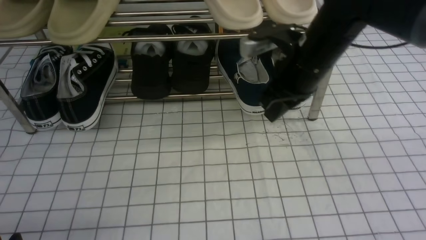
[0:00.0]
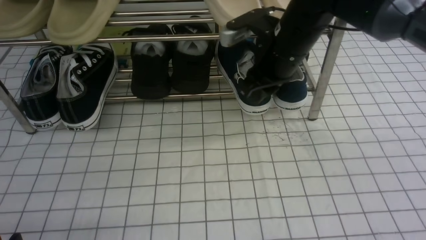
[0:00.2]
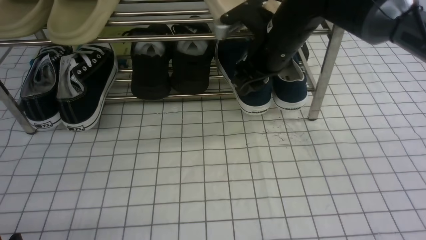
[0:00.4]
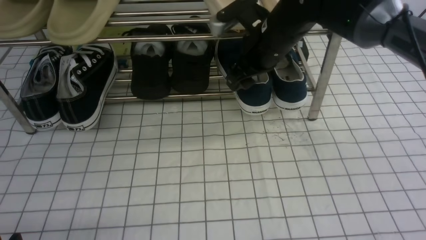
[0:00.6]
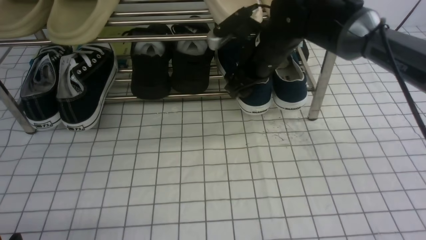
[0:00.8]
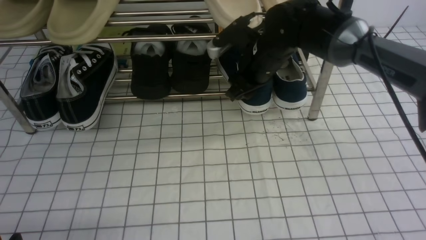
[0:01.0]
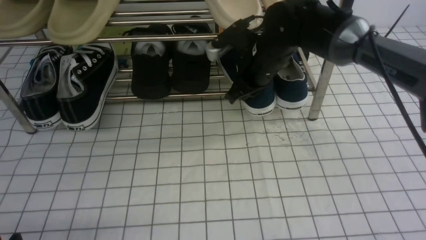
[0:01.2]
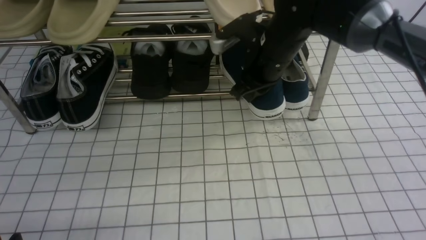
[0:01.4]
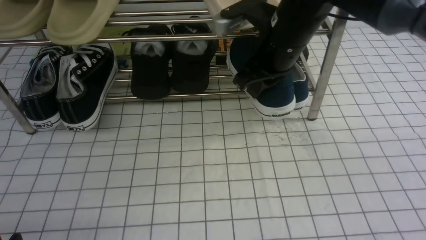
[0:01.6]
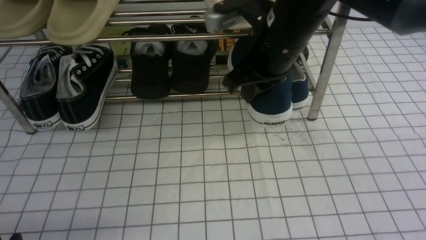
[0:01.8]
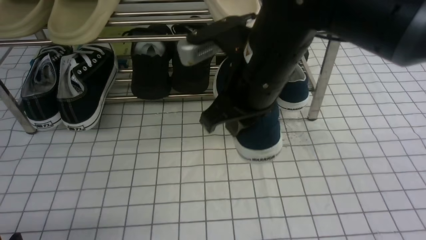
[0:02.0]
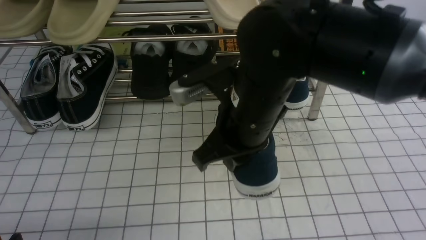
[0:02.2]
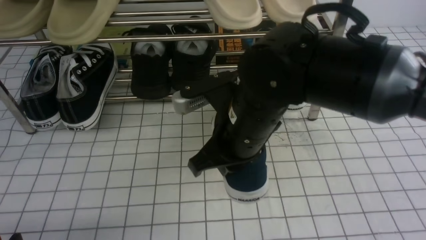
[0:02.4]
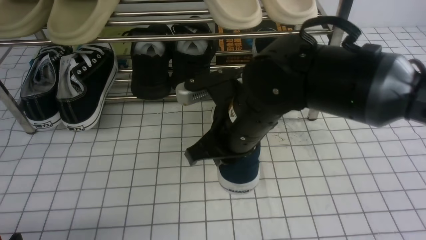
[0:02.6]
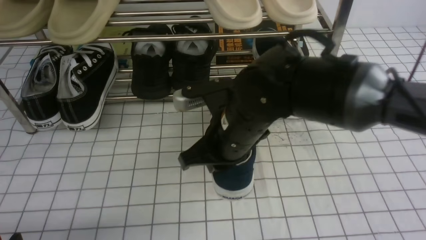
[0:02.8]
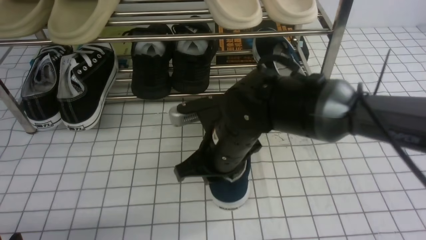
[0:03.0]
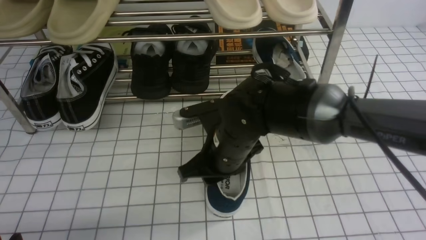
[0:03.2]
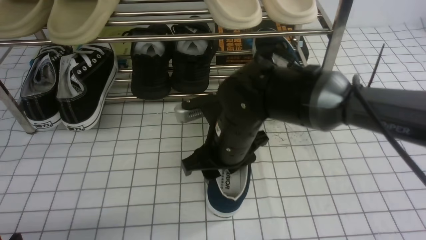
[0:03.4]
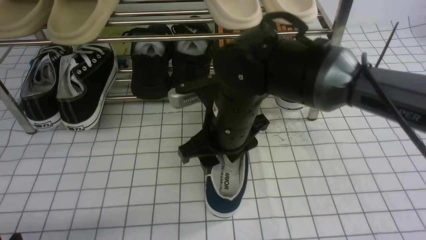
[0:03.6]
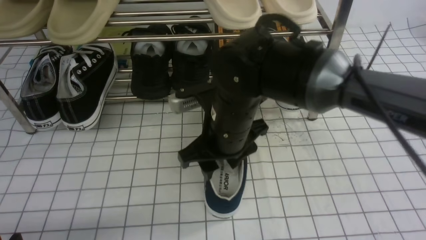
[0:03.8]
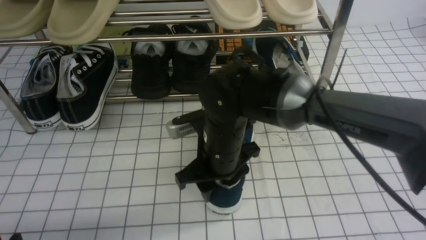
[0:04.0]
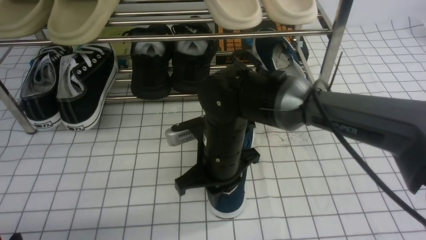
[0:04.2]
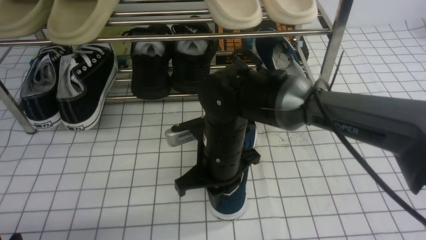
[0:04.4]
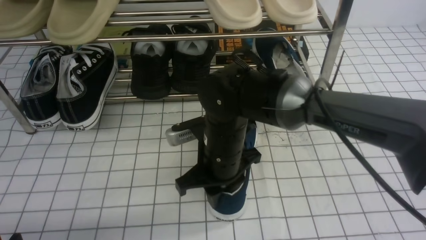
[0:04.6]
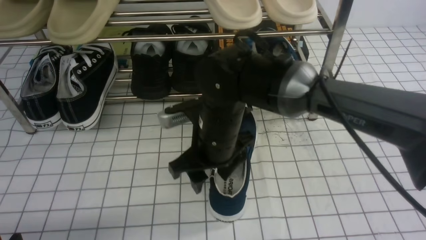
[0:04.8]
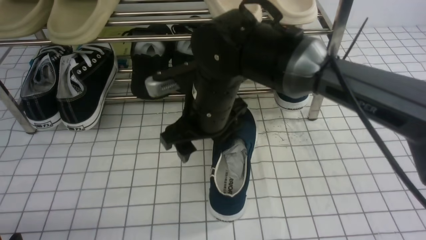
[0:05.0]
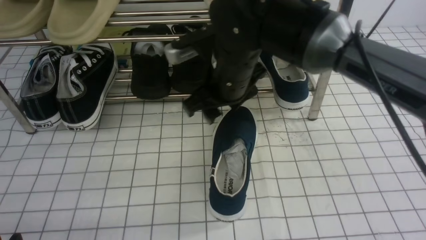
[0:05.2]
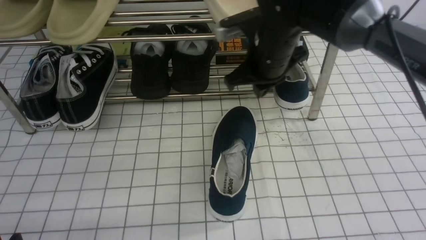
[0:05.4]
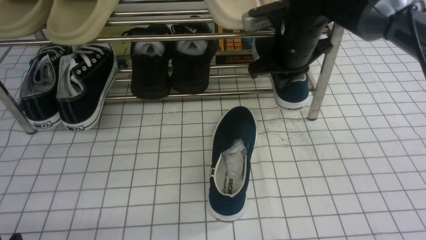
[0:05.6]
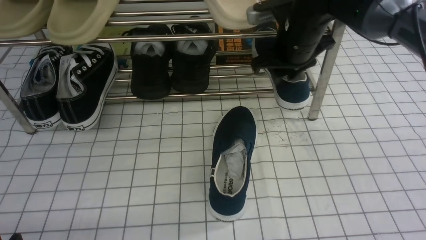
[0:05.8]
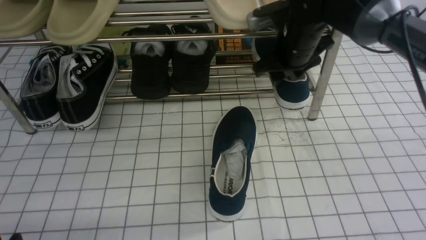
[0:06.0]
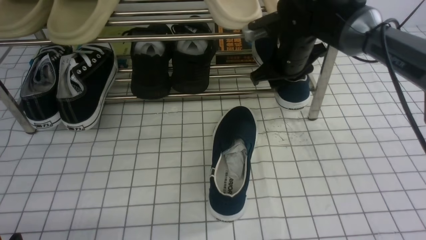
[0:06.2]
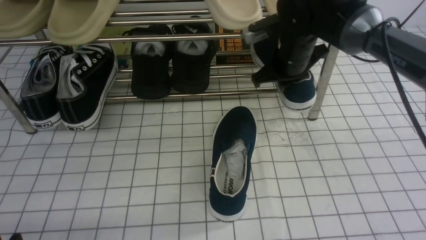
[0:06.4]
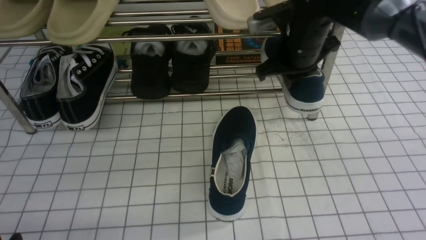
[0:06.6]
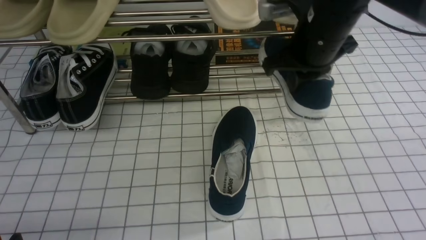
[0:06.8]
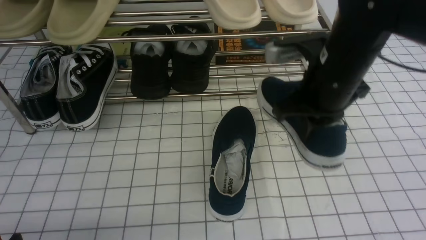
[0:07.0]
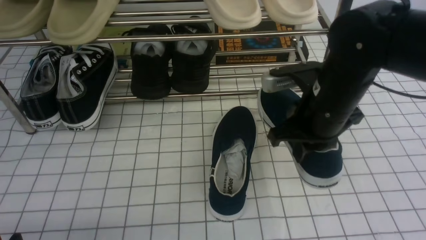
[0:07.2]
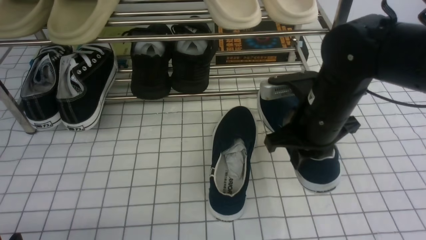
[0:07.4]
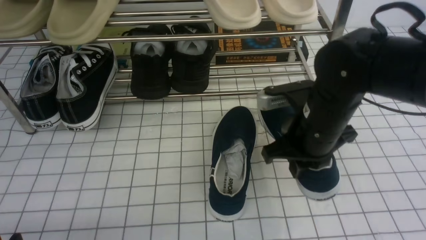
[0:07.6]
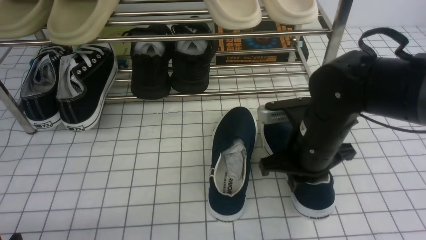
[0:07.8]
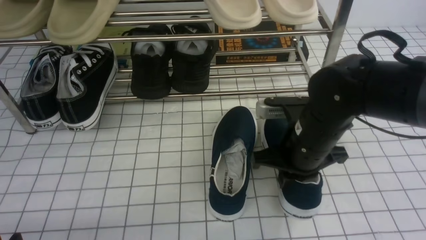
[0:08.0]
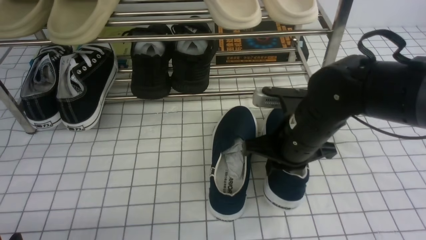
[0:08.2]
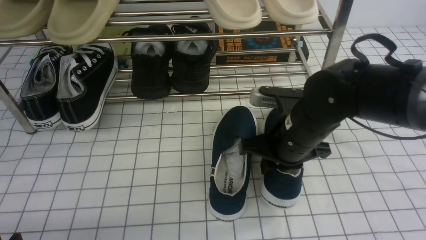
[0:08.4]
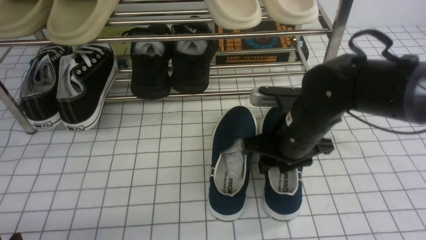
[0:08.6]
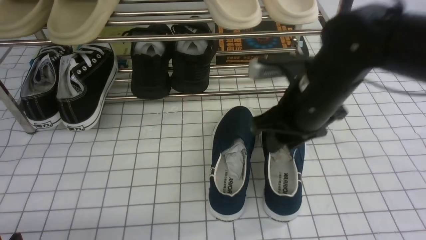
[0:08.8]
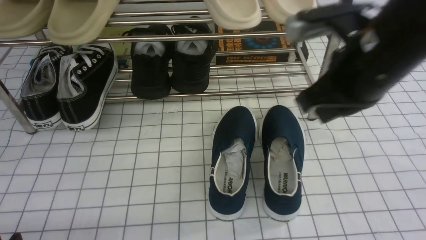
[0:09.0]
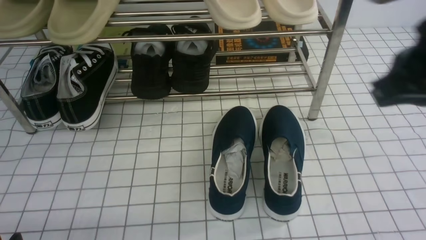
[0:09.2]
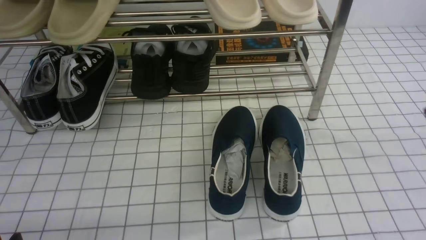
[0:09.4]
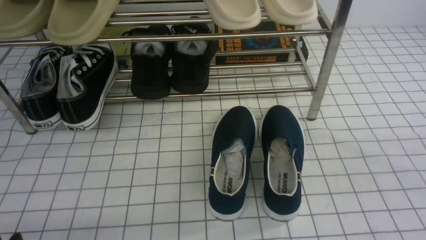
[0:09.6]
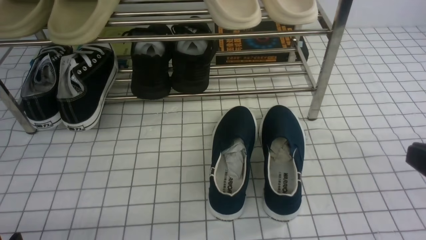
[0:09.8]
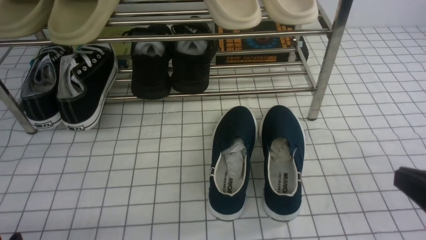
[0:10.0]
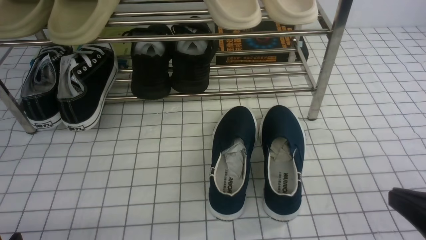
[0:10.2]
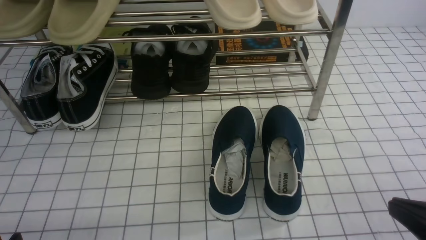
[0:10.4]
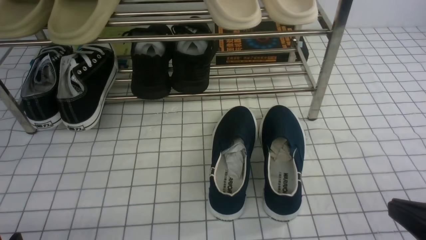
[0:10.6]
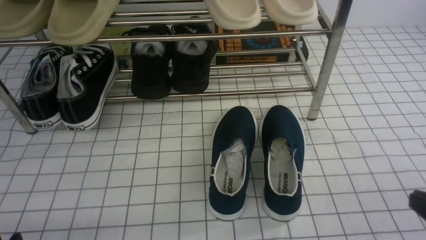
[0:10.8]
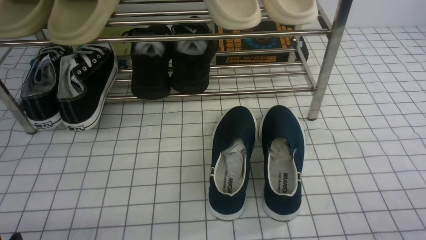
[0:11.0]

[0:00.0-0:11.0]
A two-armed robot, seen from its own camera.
Step, 1.2 to 4.8 s: use the right arm to take out the clamped shoe from the shoe rack and put it down.
Step, 5.0 to 6.2 s: use the right arm to clamp a shoe on the right side of the shoe rack.
Step, 6.4 to 8.6 s: use the right arm to take out the clamped shoe from the shoe rack and put it down.
0.0 to 1.6 s: The right gripper opens and closes again.
1.6 to 3.2 s: The right gripper is displaced downward, backward and to the left by approximately 15 cm, and opens up.
3.2 to 4.8 s: The right gripper opens its fingers.
4.8 to 6.2 s: The right gripper heads forward and to the right, covering about 20 cm.
6.2 to 7.8 s: The right gripper travels backward by approximately 15 cm, and closes.
7.8 to 9.4 s: The right gripper shifts approximately 25 cm upward, backward and to the right, and opens, then closes once more.
9.4 to 11.0 s: The right gripper goes about 20 cm downward.

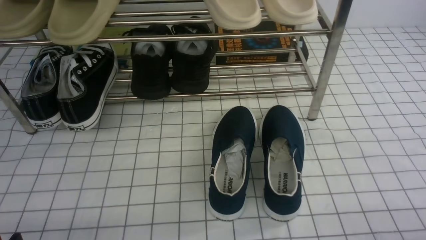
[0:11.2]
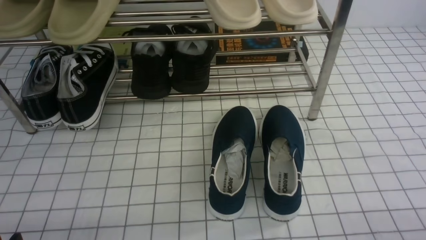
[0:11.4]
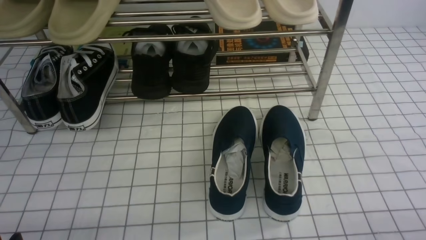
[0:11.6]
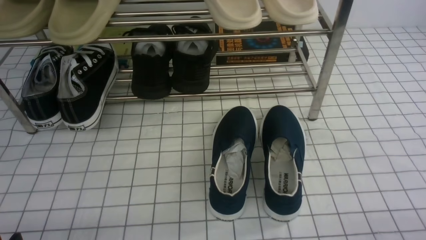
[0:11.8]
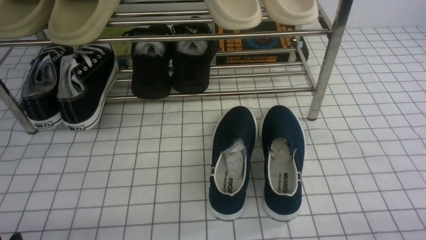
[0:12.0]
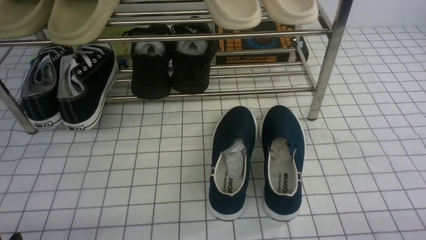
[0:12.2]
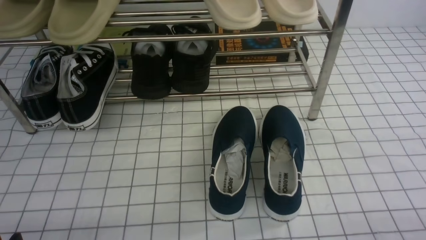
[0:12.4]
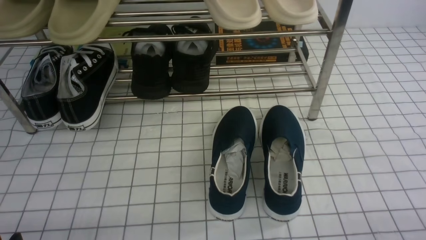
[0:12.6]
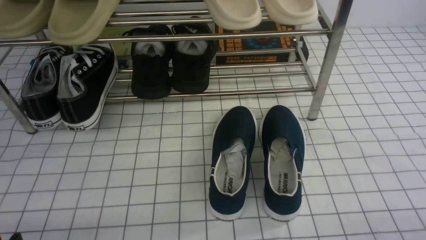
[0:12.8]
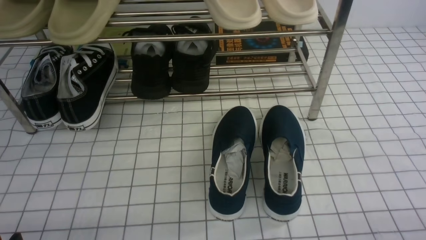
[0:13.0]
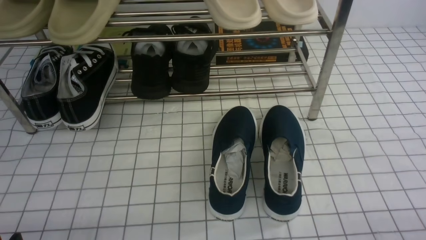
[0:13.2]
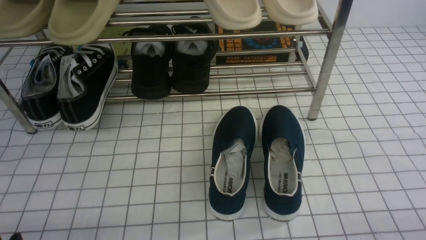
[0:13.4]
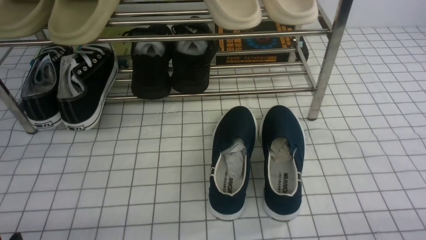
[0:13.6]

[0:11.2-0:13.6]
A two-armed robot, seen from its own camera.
12.4 to 13.6 s: Both grippers stay about where they are.

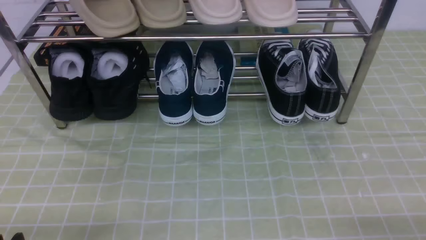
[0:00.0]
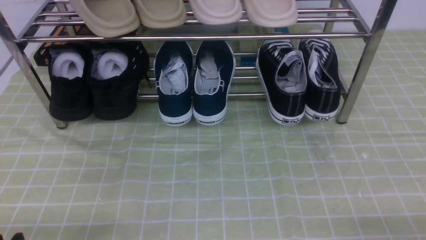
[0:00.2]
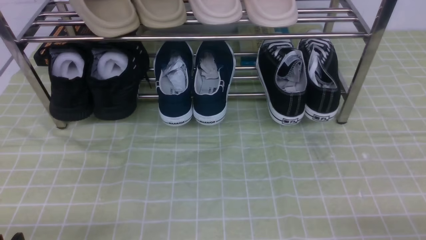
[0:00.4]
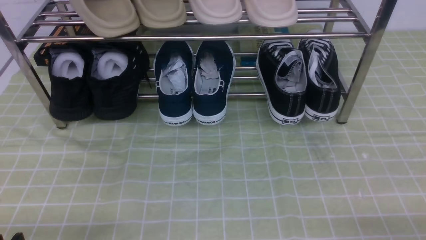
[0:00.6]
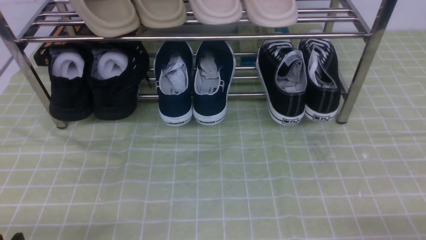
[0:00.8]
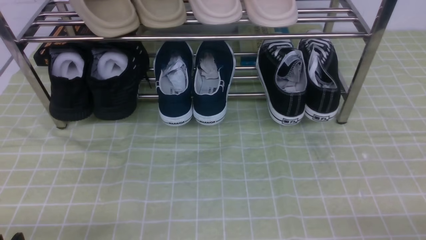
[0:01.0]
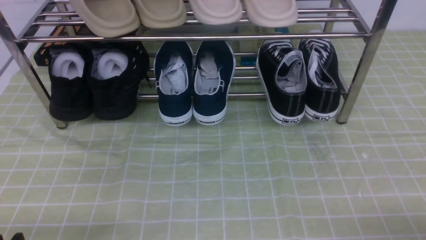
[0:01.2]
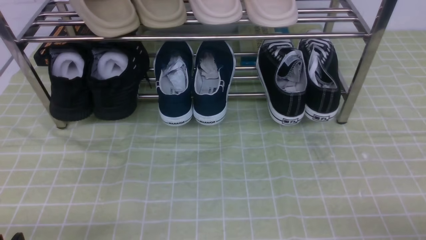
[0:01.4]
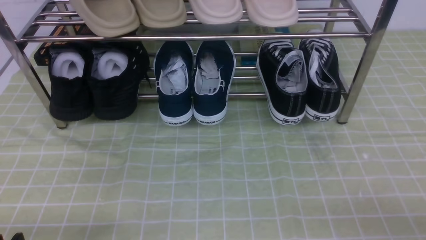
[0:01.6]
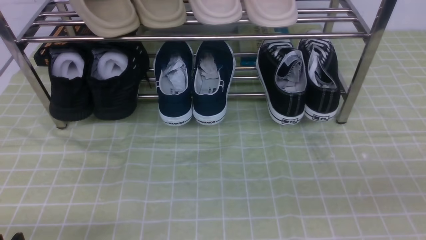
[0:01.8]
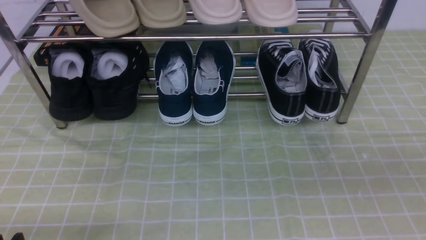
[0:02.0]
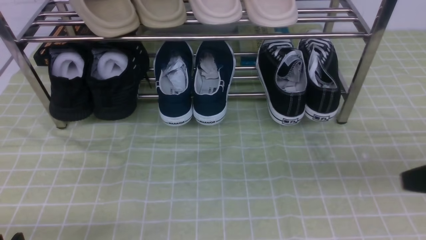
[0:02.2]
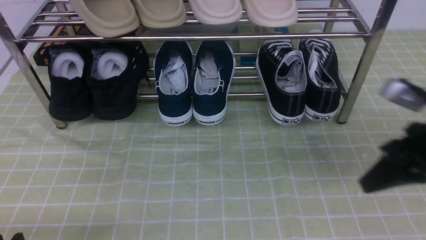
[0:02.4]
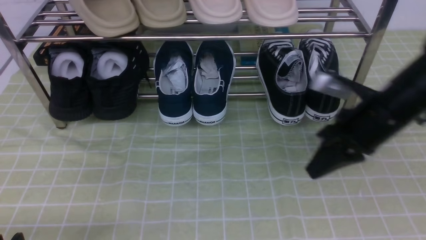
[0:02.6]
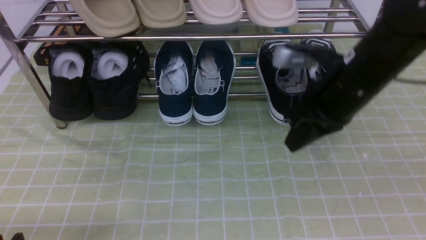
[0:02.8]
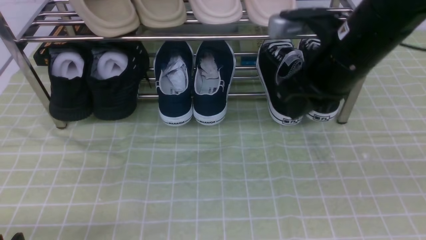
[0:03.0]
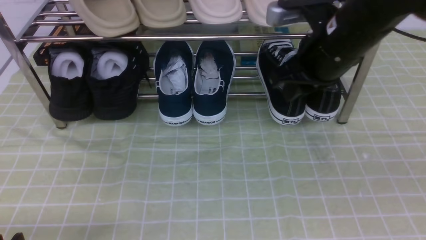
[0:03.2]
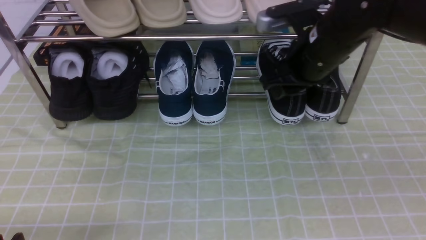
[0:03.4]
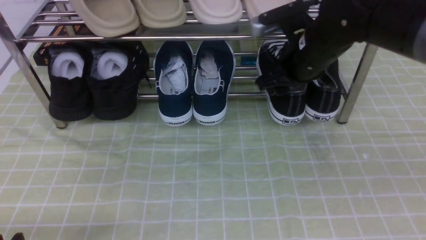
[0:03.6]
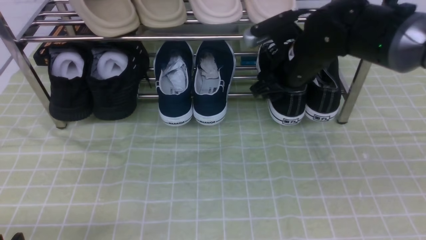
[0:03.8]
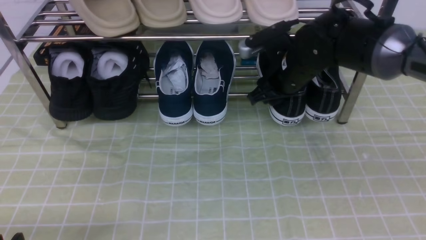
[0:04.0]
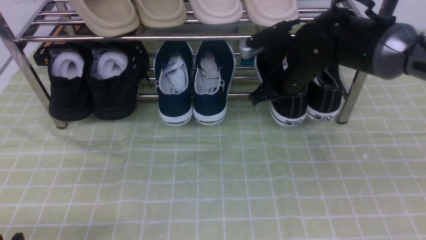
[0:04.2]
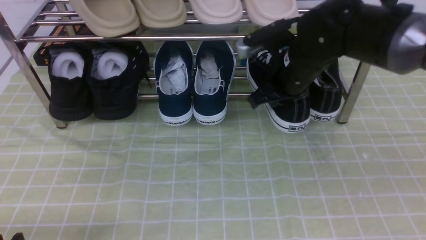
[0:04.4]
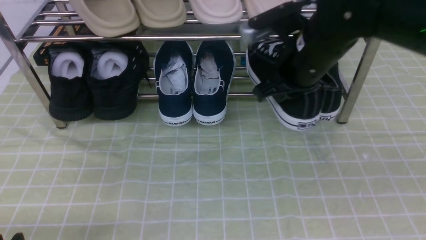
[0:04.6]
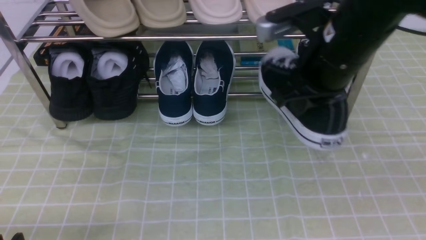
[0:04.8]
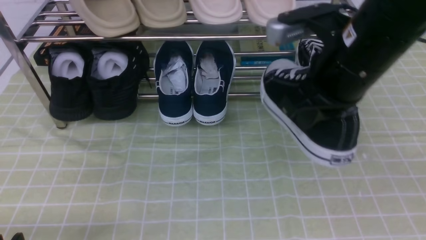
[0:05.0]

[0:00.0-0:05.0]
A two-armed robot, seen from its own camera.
Step, 0.0 to 4.2 s: use the right arm to clamp a shoe on the right side of the shoe rack.
1.6 to 3.4 s: The right gripper shifts about 35 cm forward and to the left, and closes, then opens again.
3.4 to 5.0 s: The right gripper is displaced backward by approximately 5 cm, and closes its fingers.
